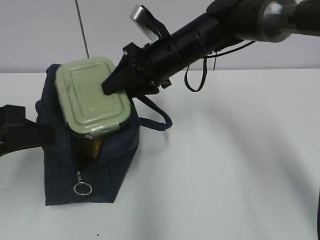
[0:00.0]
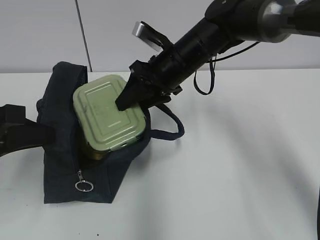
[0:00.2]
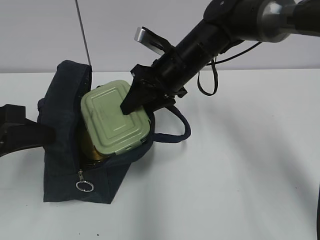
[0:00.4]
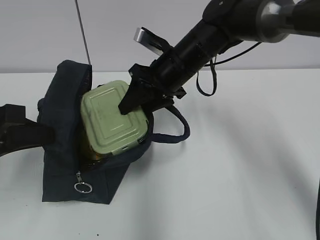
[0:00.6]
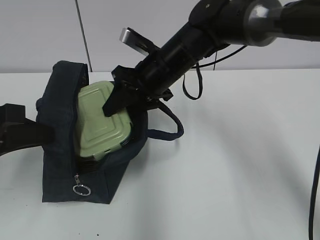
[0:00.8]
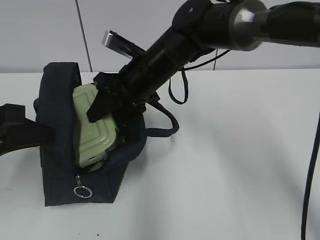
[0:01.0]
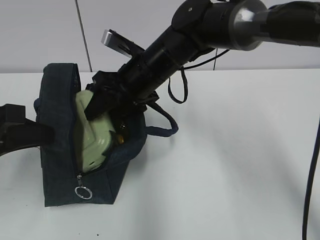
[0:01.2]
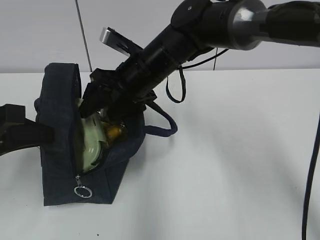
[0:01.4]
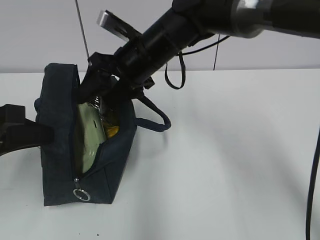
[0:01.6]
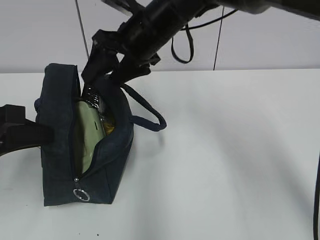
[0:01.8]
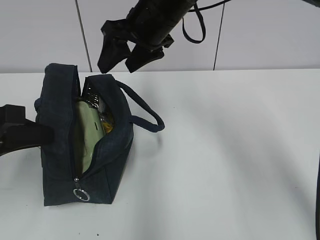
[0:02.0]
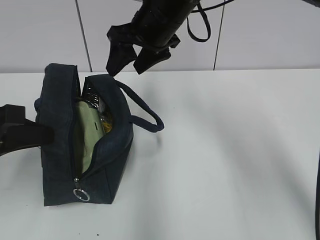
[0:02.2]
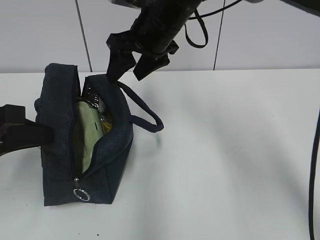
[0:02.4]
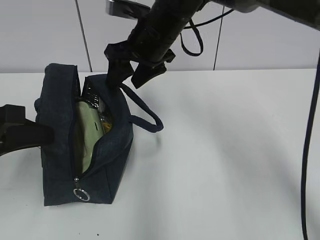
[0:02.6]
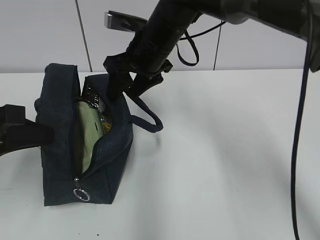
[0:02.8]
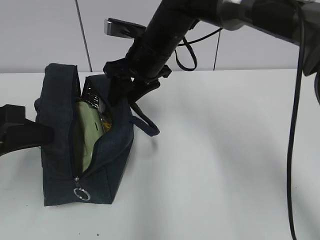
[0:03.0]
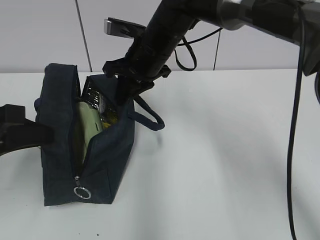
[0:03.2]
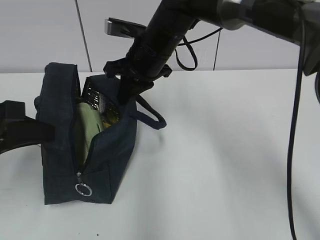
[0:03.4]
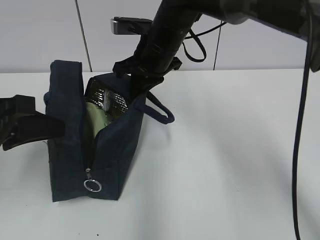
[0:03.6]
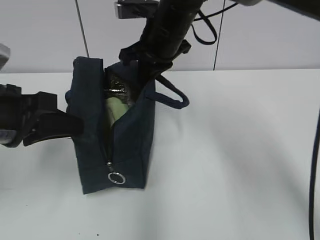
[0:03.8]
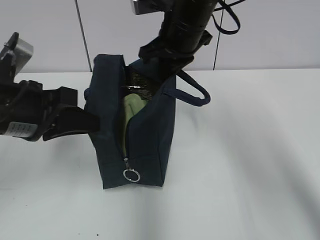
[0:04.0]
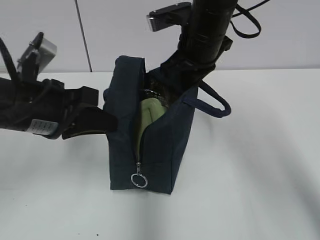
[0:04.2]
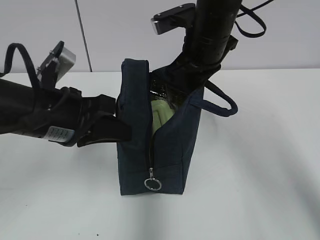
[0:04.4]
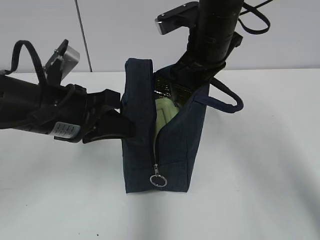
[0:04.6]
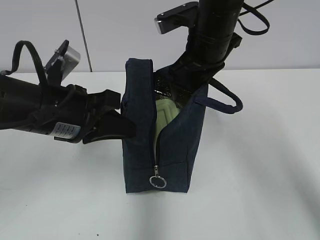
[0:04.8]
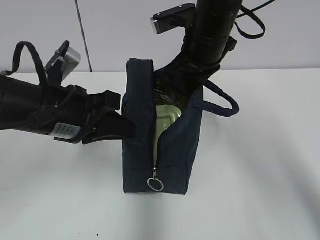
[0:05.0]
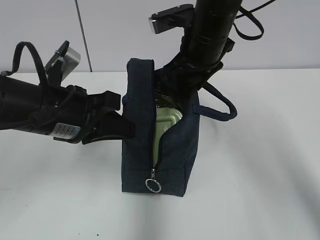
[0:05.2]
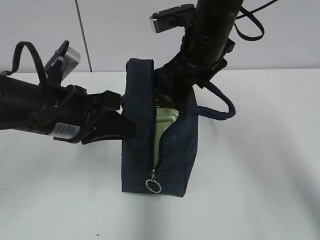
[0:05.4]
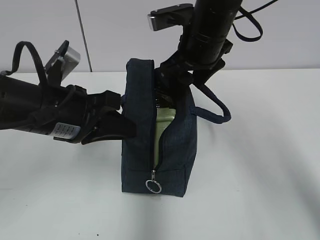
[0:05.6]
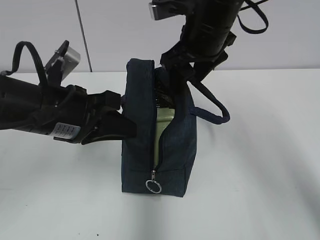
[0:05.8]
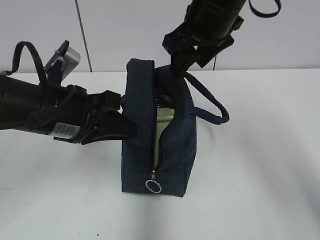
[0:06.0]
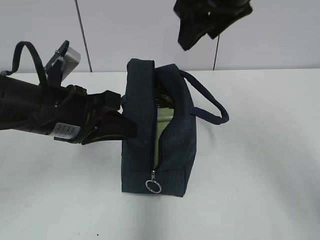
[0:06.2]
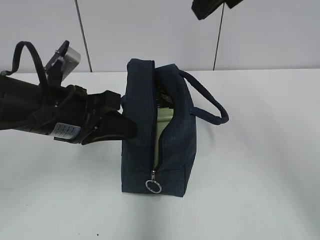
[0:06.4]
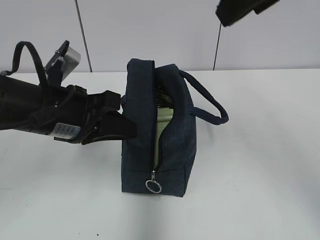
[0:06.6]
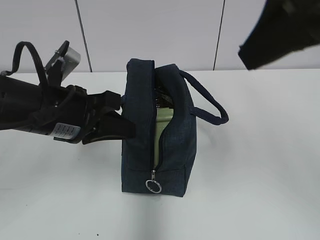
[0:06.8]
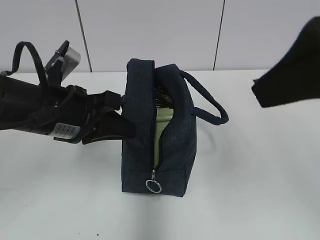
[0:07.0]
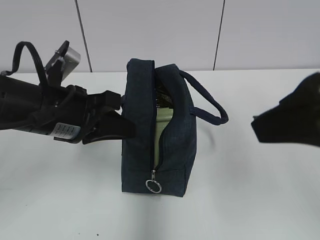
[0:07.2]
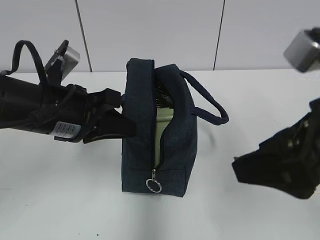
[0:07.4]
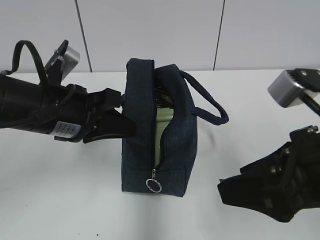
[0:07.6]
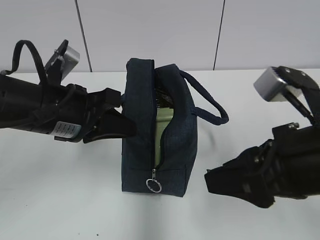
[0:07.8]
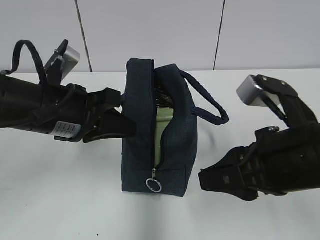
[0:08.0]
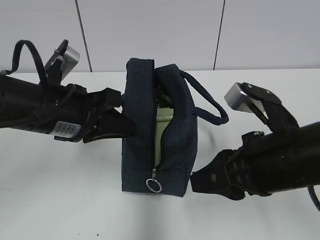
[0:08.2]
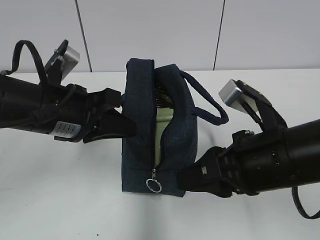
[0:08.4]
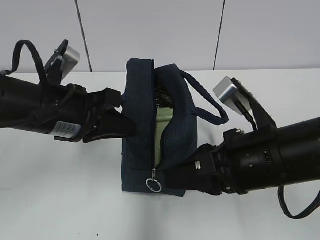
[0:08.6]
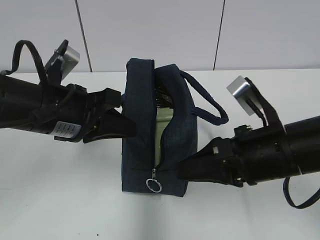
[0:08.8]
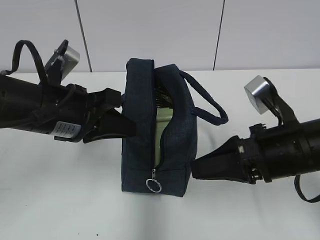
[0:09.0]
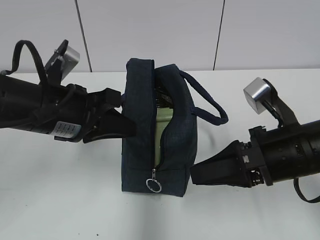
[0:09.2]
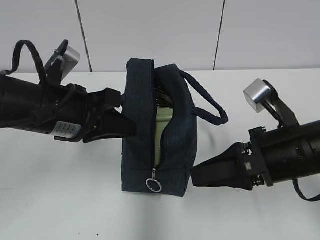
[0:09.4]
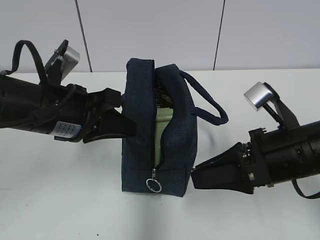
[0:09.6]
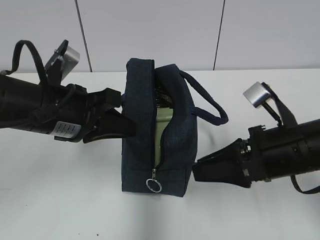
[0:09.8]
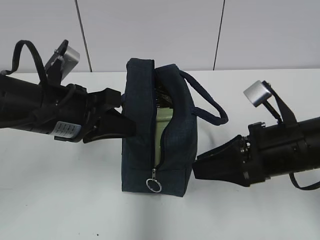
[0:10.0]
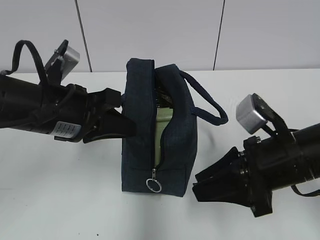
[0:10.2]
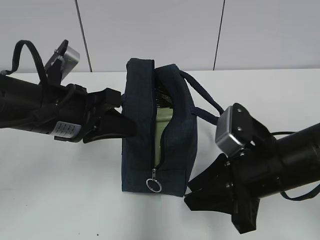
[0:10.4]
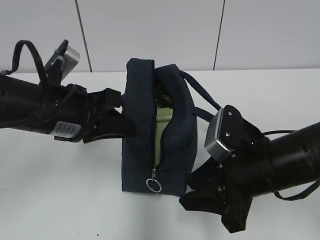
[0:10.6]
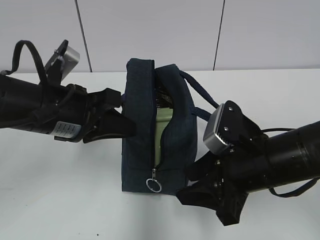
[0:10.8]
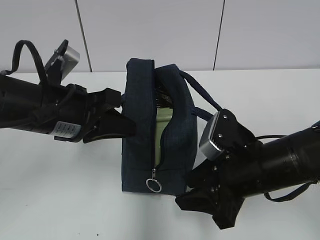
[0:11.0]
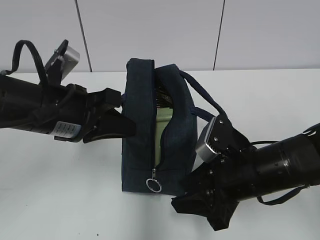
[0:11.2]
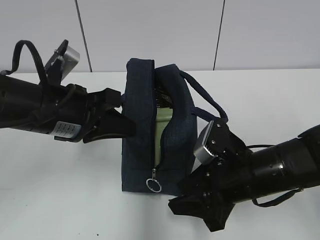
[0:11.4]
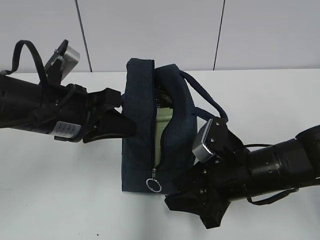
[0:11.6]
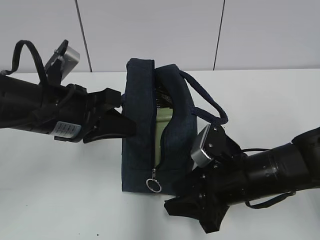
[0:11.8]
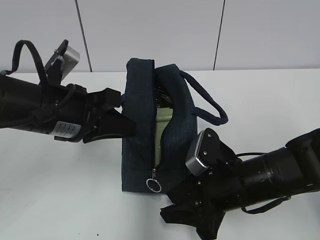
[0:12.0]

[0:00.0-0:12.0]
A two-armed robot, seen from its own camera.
Step, 0:01.6 to 0:03.2: Grab the lunch bag with your right hand.
Step, 0:03.4 to 0:05.6: Move the lunch bag to the right.
0:00.0 to 0:01.6: The grippers make only small movements.
0:03.0 to 0:04.4: The grippers both shift to the right by roughly 10 cm. The right gripper closes.
0:04.4 to 0:06.0: The right gripper moves upward, roughly 5 cm, and opens.
0:06.0 to 0:07.6: The right gripper moves backward, roughly 20 cm.
0:07.6 to 0:09.0: The right gripper heads forward and downward, covering some 10 cm.
0:10.4 to 0:12.0: The right gripper moves downward, approximately 5 cm.

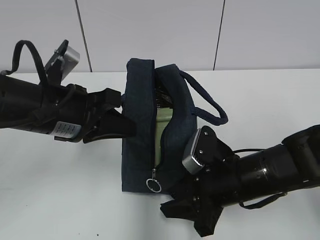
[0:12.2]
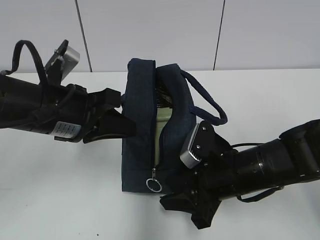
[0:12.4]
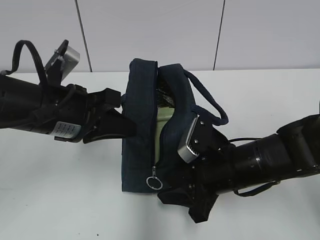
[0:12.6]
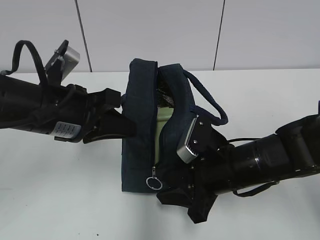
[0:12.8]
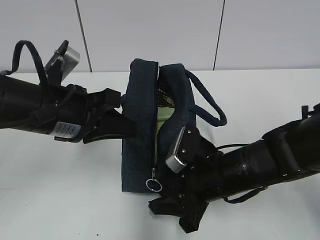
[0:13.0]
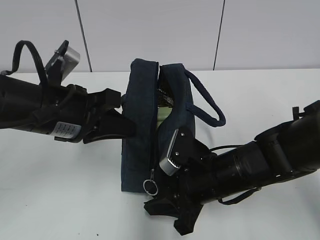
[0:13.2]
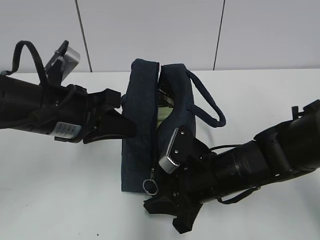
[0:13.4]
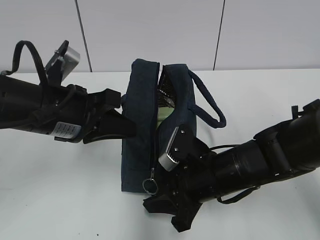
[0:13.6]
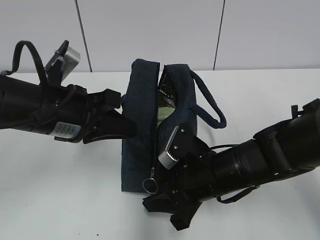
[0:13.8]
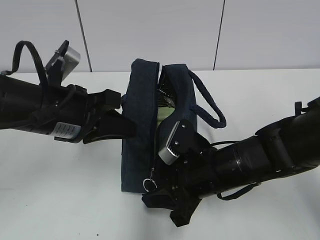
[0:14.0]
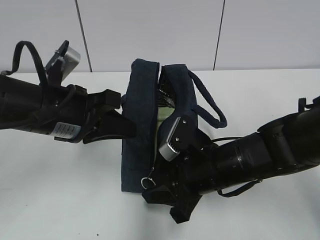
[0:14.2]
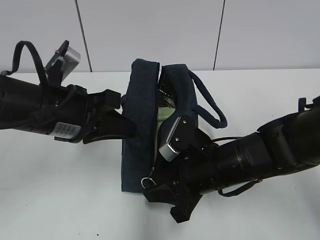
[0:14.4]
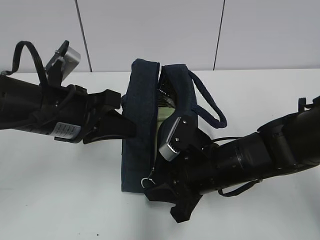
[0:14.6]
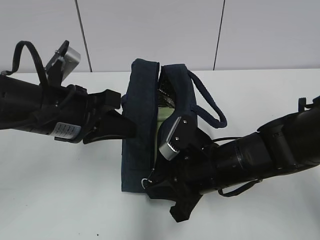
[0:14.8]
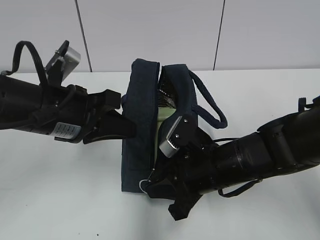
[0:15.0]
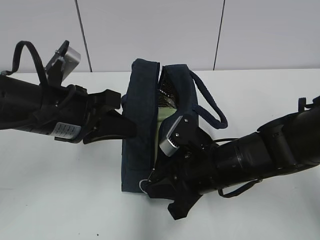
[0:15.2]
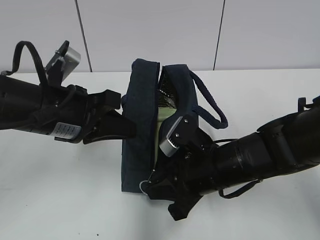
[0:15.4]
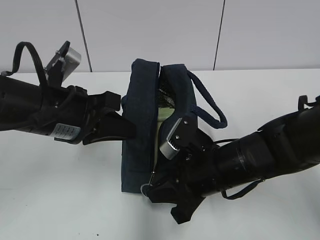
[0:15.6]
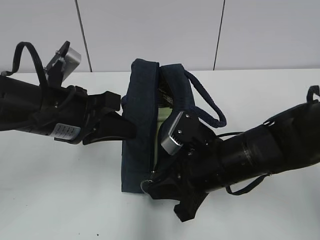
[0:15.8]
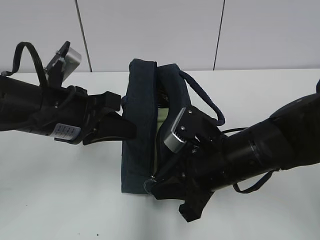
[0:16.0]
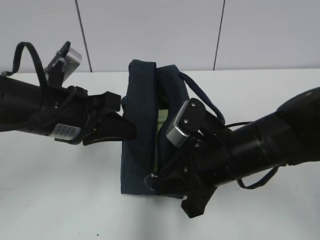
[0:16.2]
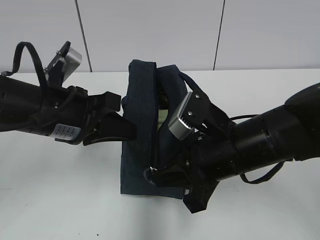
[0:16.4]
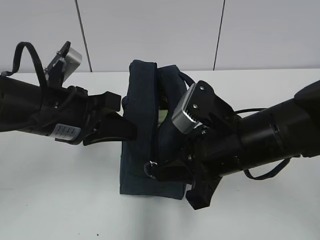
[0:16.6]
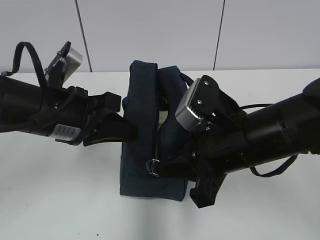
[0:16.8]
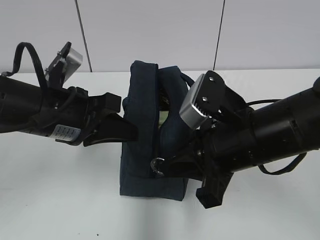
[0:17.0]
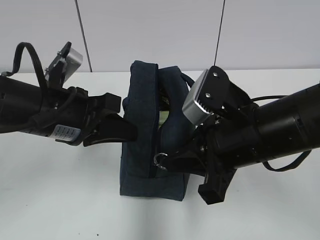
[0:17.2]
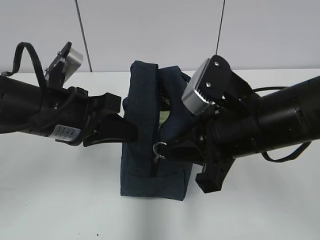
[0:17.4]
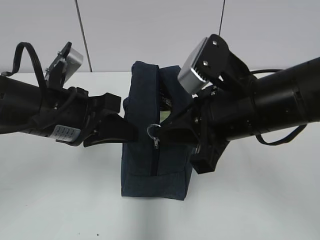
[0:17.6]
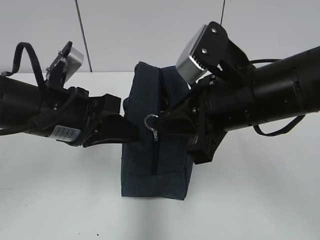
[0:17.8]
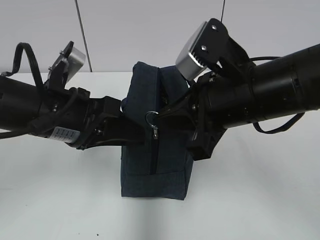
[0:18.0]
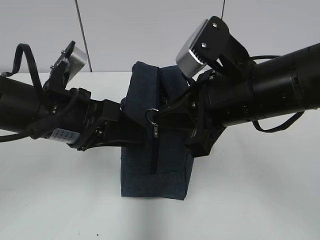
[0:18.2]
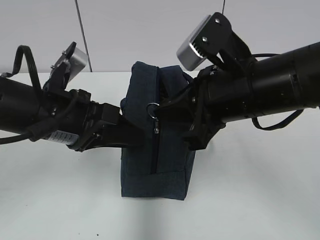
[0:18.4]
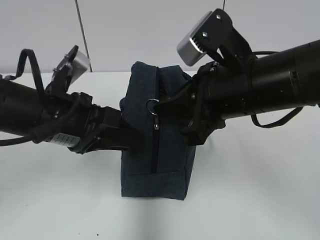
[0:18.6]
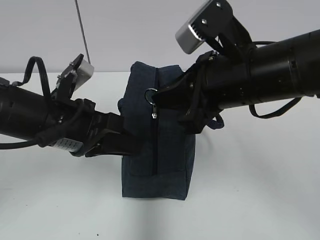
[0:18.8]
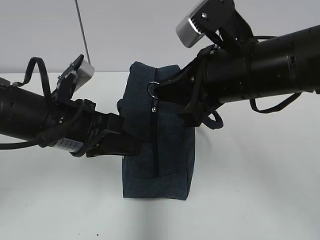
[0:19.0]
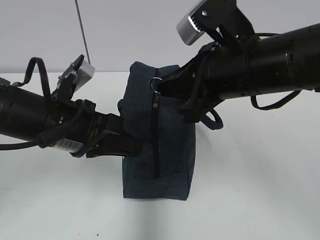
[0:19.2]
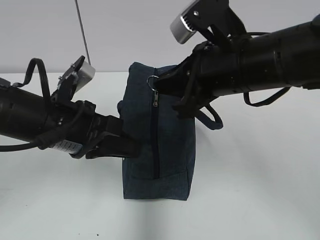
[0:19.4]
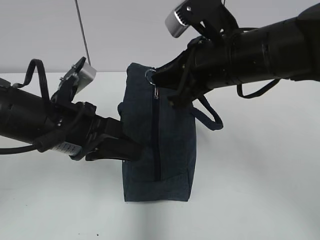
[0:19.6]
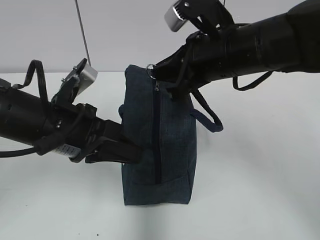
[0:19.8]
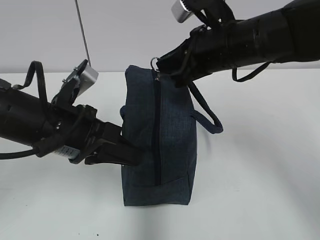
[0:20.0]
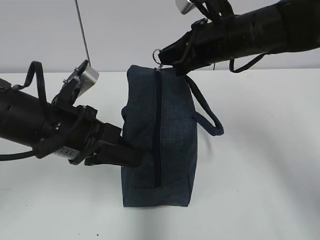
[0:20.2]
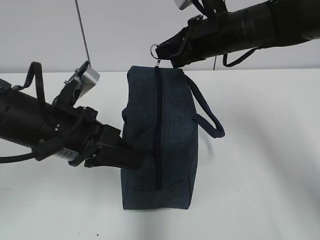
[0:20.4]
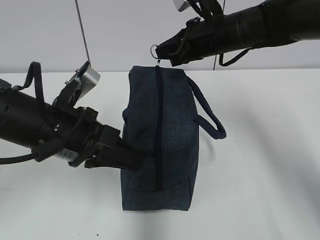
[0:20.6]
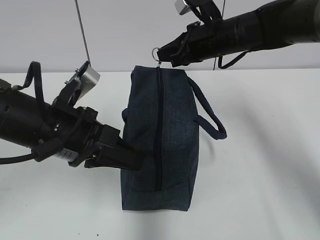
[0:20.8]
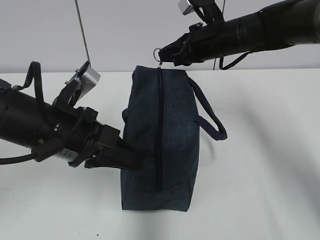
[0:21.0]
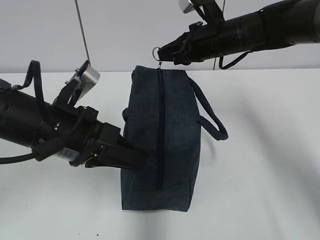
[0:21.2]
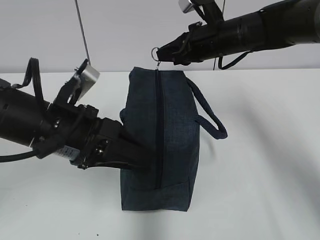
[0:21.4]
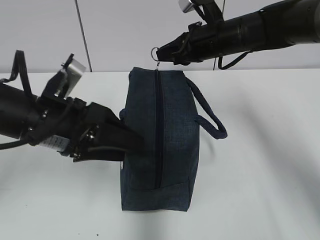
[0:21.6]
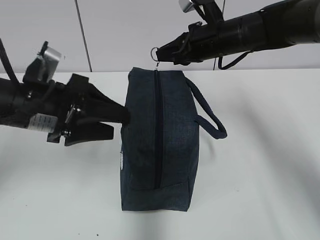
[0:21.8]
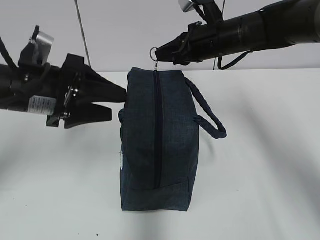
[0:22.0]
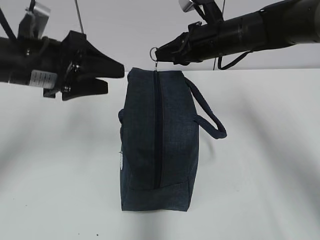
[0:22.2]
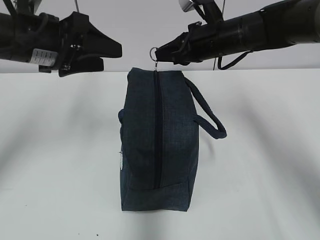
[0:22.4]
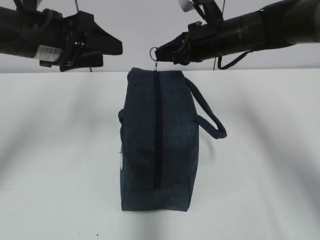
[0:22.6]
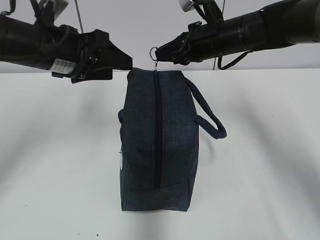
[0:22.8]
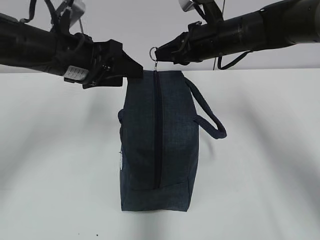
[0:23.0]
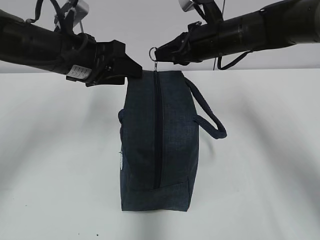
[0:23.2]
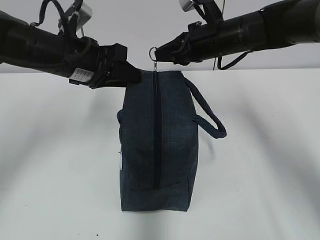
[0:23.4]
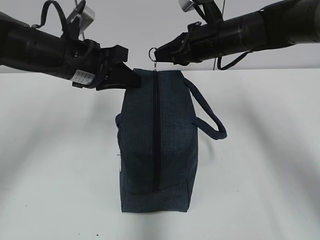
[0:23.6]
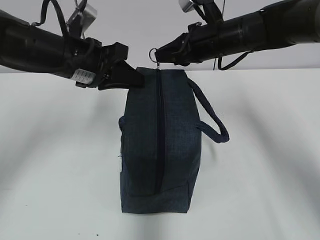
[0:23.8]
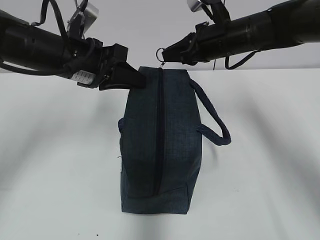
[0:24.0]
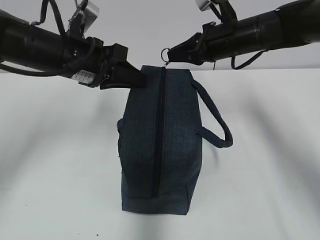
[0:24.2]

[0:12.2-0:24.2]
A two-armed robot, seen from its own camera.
0:12.2 to 0:13.8: There are only small adjustments of the grippers.
0:13.8 to 0:15.2: The right gripper closes up.
0:15.2 to 0:16.6: The right gripper shifts about 10 cm upward.
0:16.6 to 0:18.2: The left gripper opens. The right gripper shifts some 5 cm upward.
0:18.2 to 0:19.8: The left gripper closes up, while the right gripper is displaced forward by approximately 5 cm.
0:19.8 to 0:21.2: The right gripper moves forward, about 10 cm.
0:21.2 to 0:22.6: The left gripper moves forward and upward, some 10 cm, and opens.
0:22.6 to 0:24.2: The left gripper moves some 5 cm, and closes.
